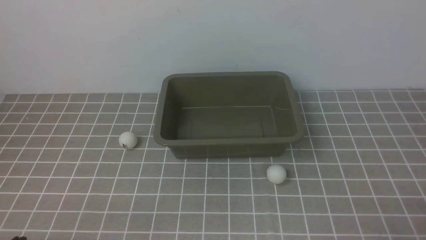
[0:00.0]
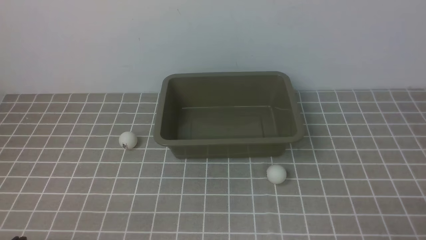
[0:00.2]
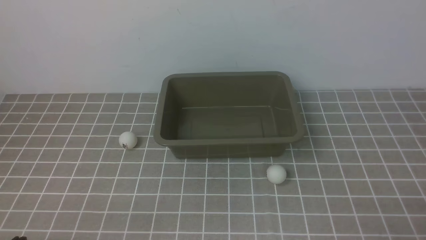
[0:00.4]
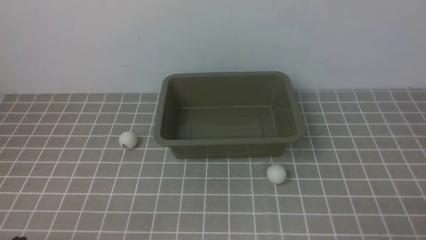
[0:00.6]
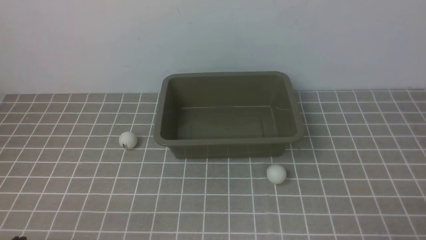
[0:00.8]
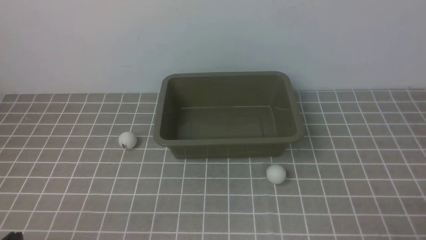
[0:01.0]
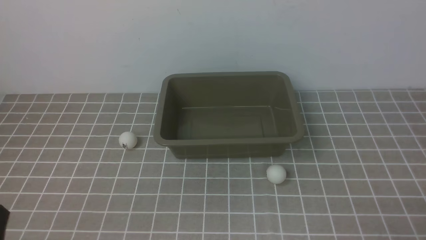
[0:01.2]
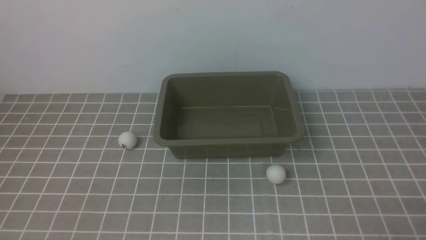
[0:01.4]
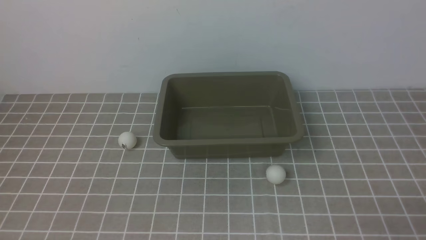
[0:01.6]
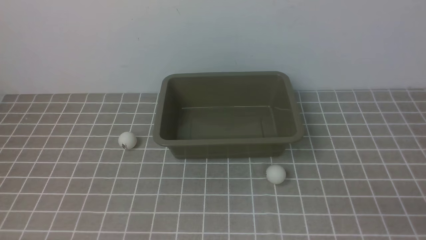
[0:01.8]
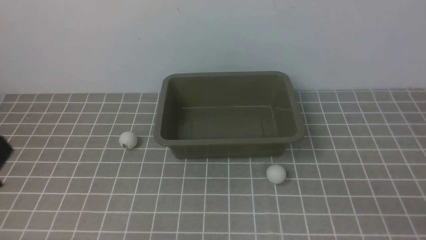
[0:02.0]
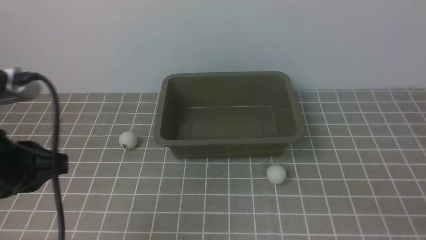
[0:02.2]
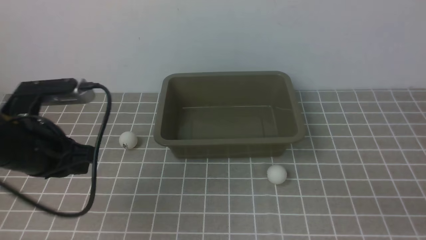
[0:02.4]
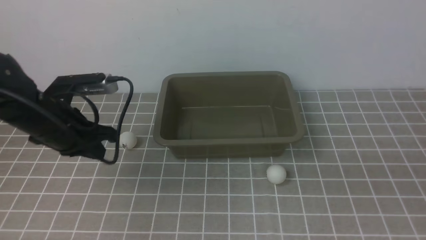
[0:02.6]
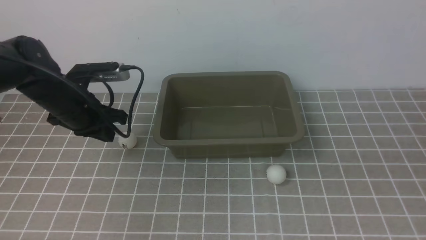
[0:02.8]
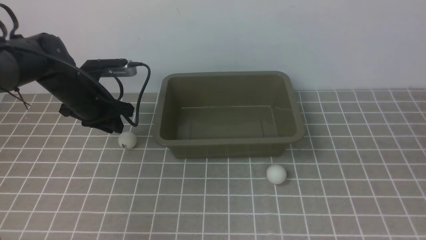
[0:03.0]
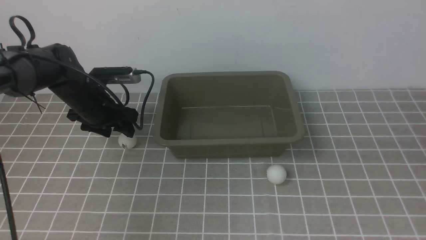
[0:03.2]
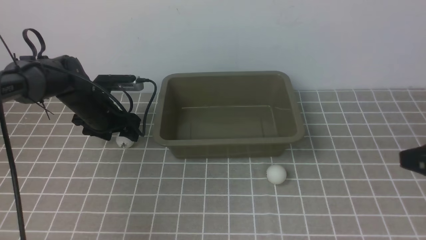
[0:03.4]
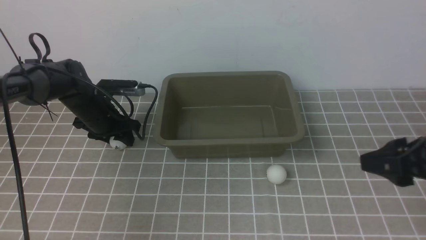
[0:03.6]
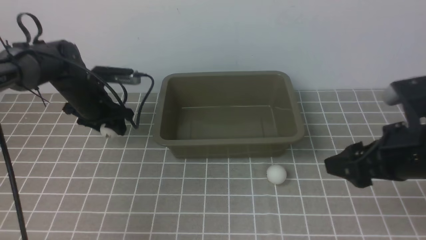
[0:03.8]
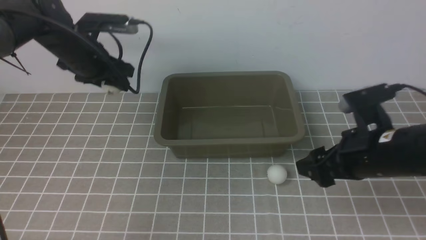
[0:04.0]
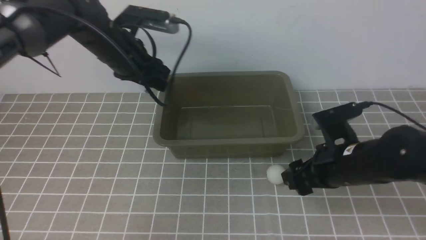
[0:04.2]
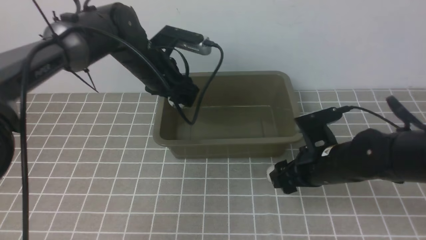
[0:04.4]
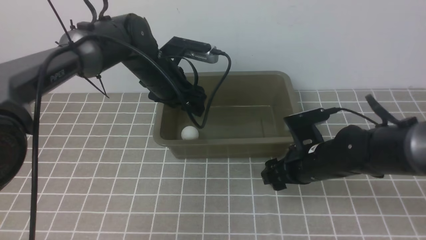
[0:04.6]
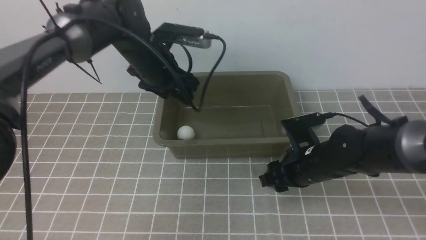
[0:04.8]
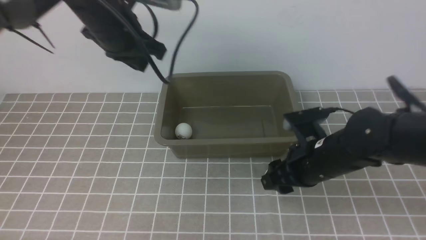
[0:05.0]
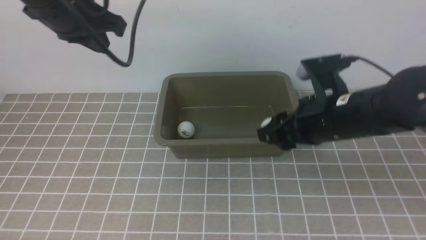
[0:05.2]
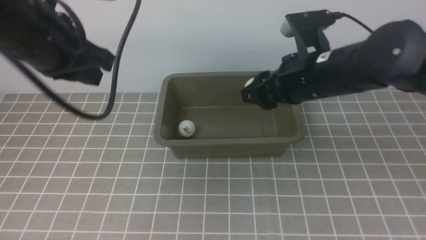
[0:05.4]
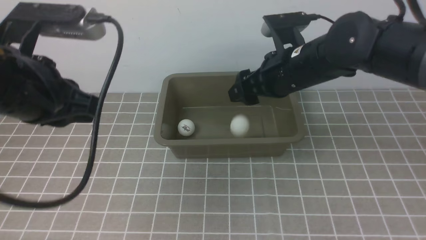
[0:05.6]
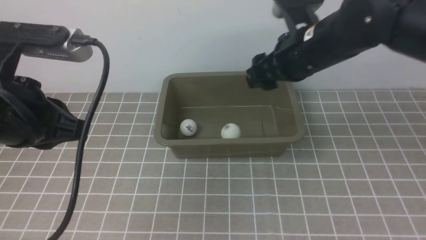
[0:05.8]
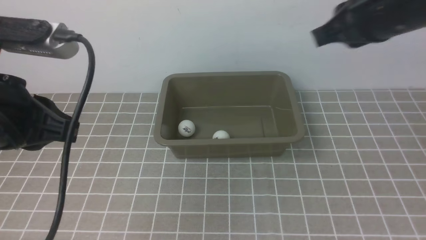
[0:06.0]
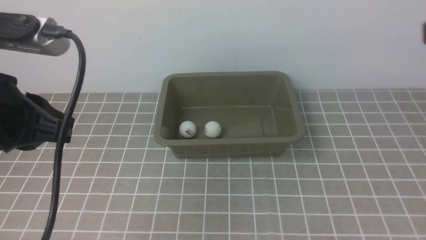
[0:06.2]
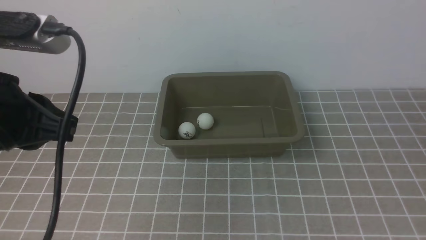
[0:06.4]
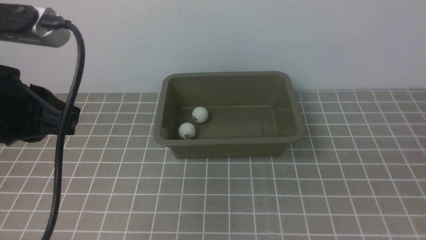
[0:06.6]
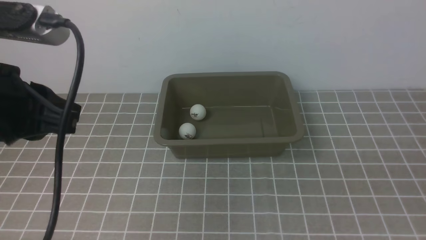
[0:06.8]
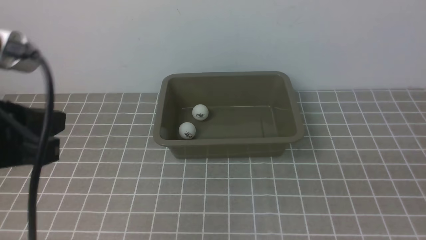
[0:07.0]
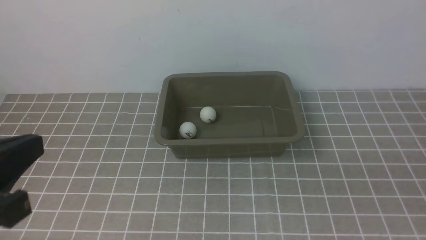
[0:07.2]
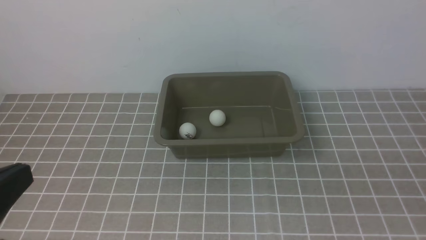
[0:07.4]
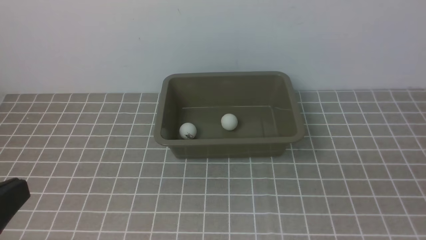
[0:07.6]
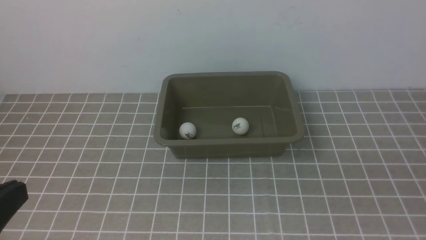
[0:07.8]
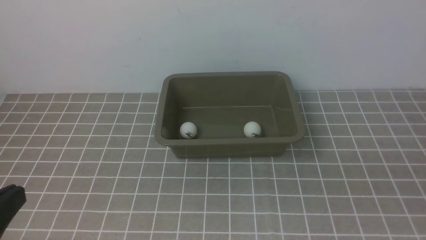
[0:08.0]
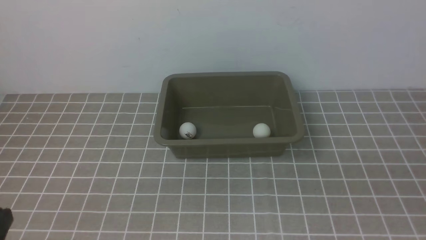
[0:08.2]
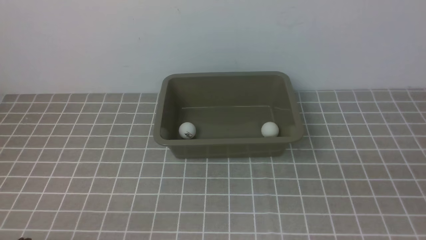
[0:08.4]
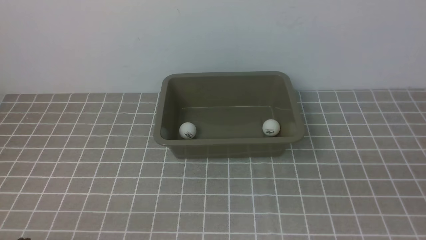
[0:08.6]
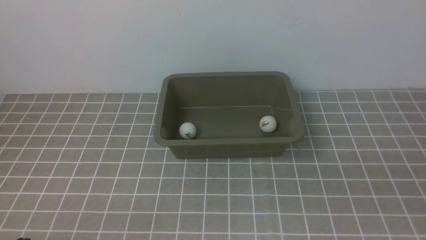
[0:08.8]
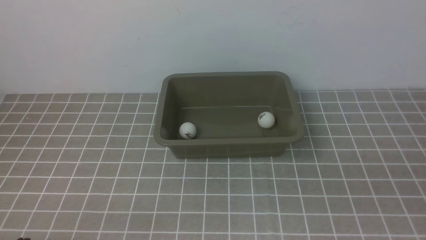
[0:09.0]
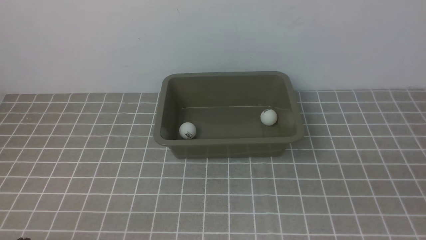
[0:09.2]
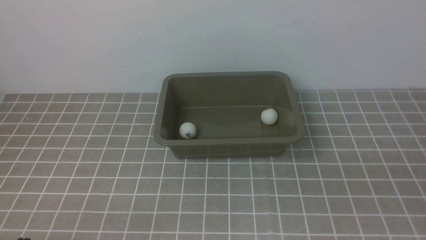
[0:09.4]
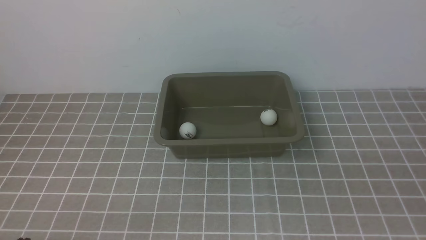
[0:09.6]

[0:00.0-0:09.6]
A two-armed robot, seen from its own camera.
Step, 0:00.0 to 0:03.8: use the left arm to clamp the table tennis ball closest to it.
Step, 0:04.0 to 0:04.6: use the left arm to put the table tennis ball into the box.
Step, 0:04.8 to 0:05.0: use the right arm to clamp the table tennis ball closest to it.
Step, 0:05.2 to 0:05.8: use the right arm to put the table tennis ball into the box.
0:01.6 to 0:03.2: The right gripper is displaced upward and forward by roughly 15 cm, while the left gripper moves forward, about 40 cm, and opens.
0:03.2 to 0:04.8: The left gripper shifts some 15 cm upward and to the right. Meanwhile the right gripper travels downward, forward and to the left by some 25 cm, and opens up.
0:04.8 to 0:06.4: The right gripper travels backward, upward and to the right by approximately 35 cm, and closes up, while the left gripper heads backward, covering about 25 cm, and closes.
0:06.4 to 0:08.0: The left gripper goes roughly 15 cm backward and downward.
0:08.0 to 0:09.6: The left gripper moves downward, some 10 cm.

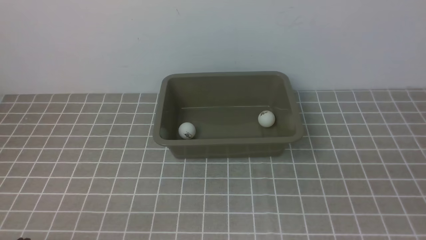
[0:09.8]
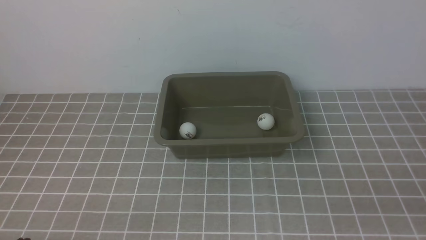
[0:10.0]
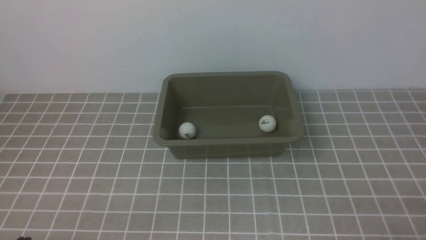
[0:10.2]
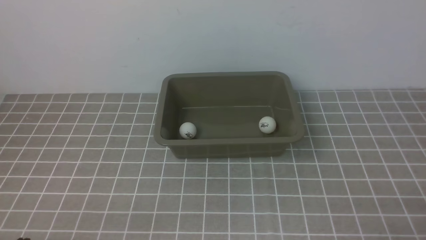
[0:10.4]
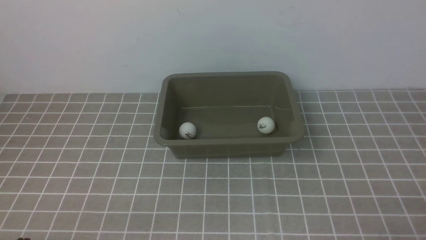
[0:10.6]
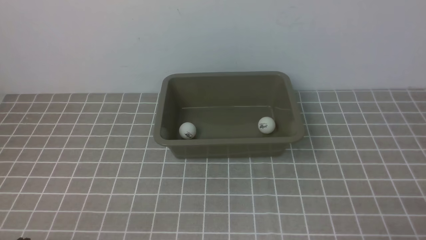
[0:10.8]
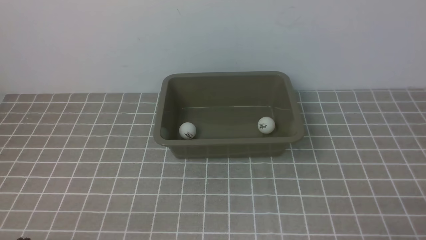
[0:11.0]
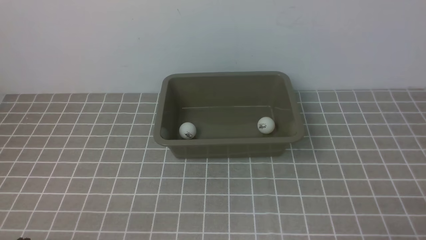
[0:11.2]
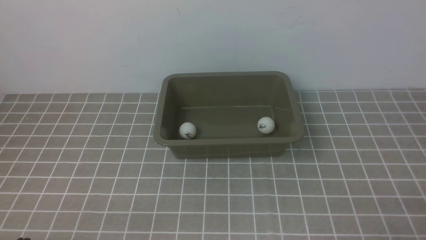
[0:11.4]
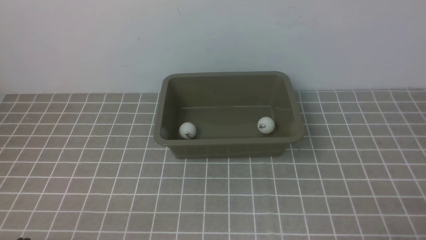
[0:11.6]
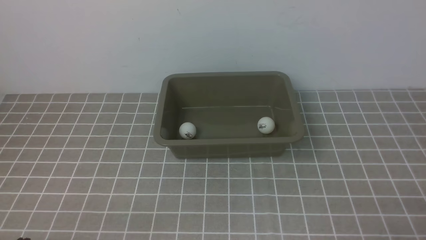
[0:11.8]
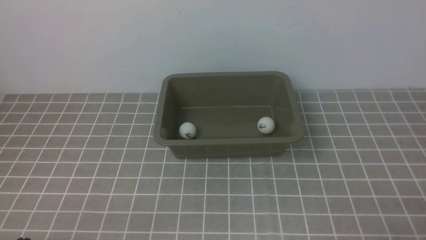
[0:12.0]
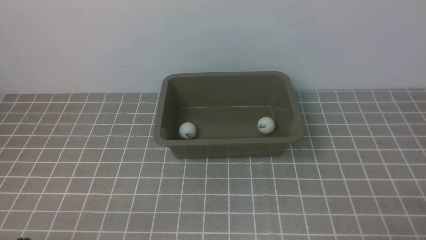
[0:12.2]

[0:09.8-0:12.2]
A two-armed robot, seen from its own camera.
0:11.0 to 0:12.2: Both grippers stay about where they are.
